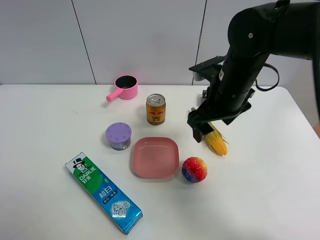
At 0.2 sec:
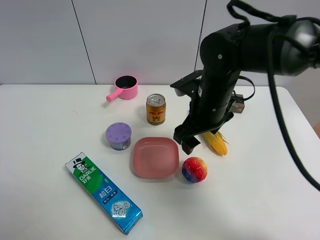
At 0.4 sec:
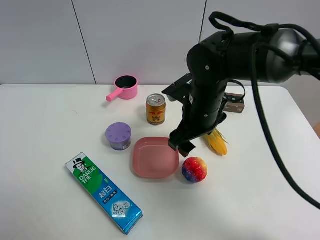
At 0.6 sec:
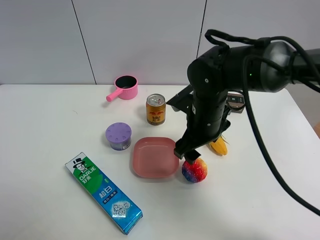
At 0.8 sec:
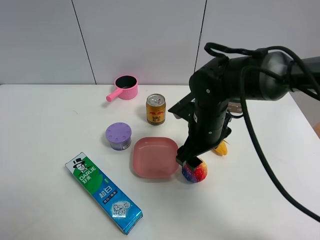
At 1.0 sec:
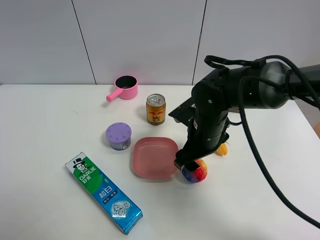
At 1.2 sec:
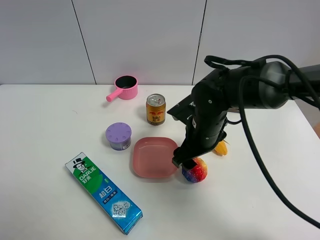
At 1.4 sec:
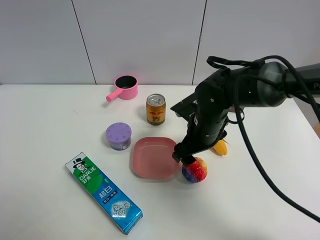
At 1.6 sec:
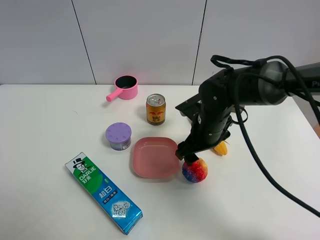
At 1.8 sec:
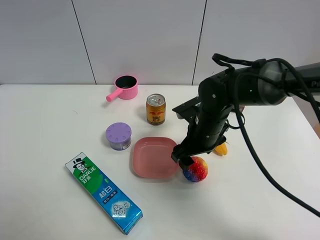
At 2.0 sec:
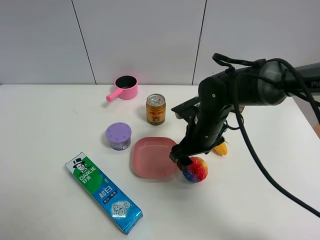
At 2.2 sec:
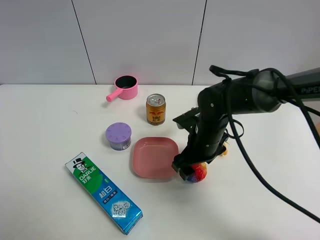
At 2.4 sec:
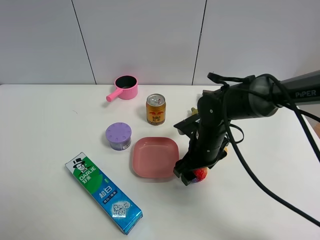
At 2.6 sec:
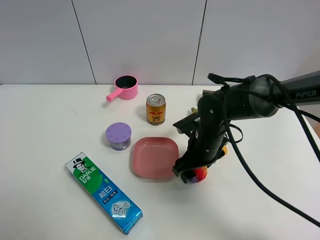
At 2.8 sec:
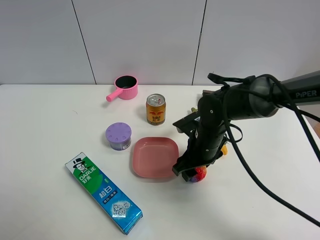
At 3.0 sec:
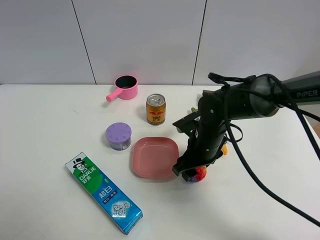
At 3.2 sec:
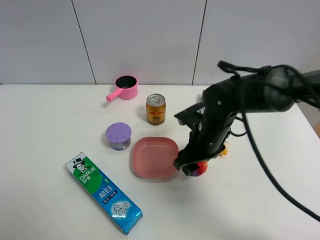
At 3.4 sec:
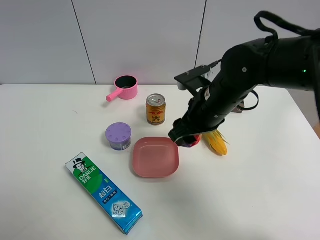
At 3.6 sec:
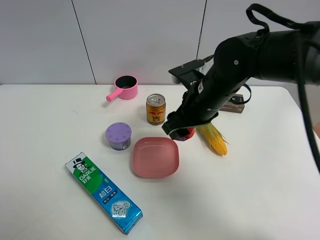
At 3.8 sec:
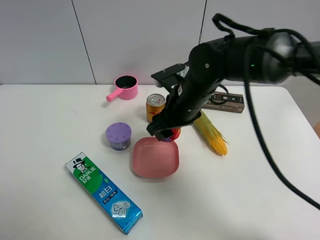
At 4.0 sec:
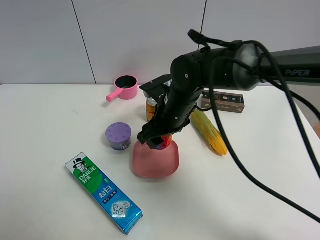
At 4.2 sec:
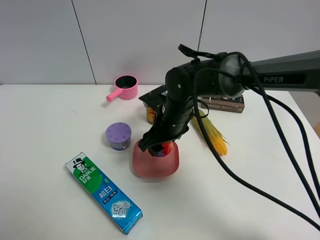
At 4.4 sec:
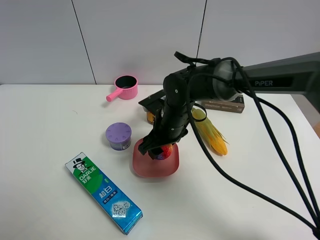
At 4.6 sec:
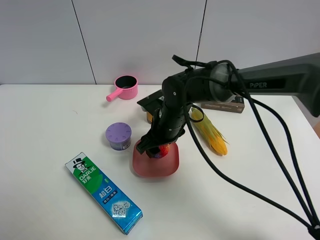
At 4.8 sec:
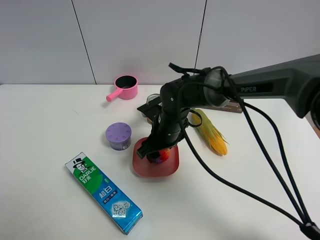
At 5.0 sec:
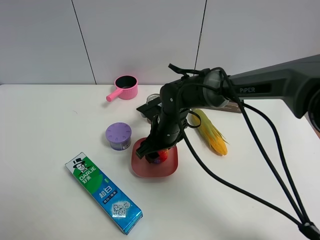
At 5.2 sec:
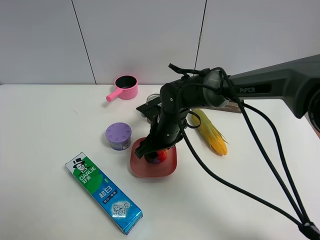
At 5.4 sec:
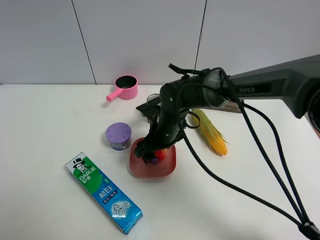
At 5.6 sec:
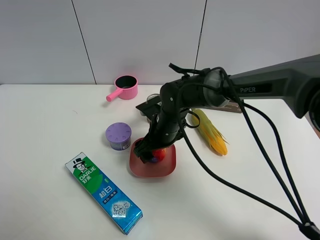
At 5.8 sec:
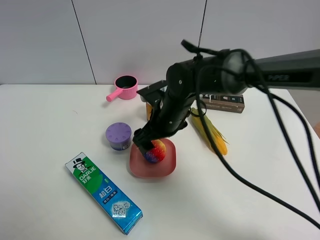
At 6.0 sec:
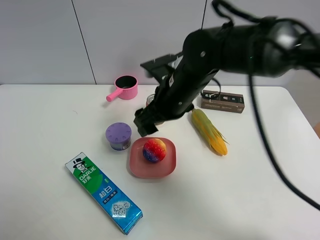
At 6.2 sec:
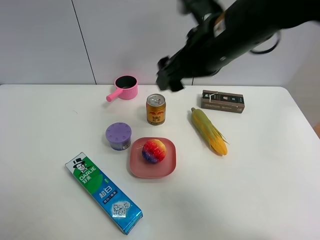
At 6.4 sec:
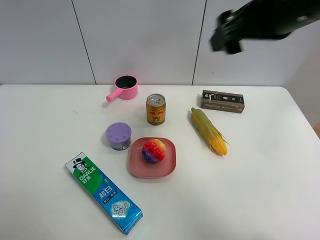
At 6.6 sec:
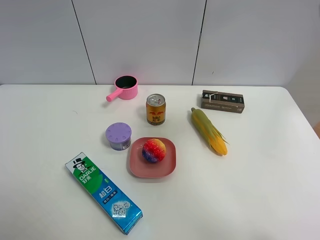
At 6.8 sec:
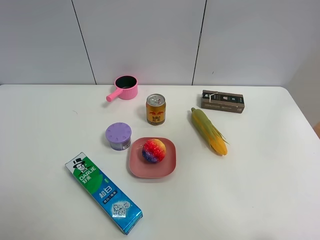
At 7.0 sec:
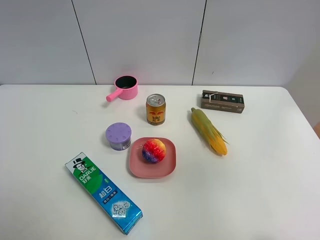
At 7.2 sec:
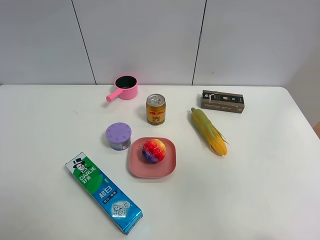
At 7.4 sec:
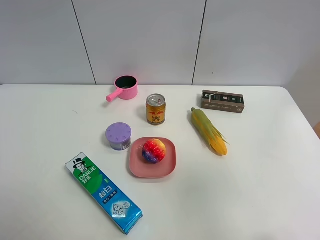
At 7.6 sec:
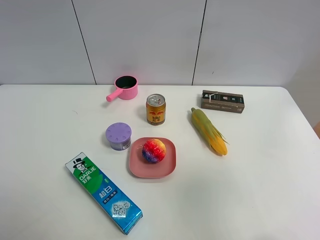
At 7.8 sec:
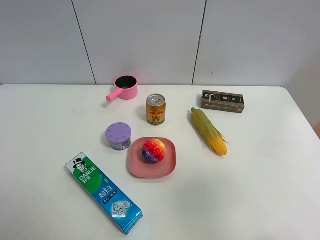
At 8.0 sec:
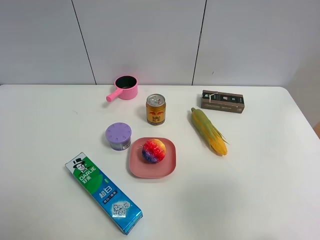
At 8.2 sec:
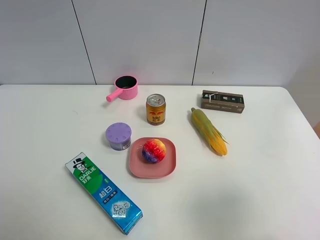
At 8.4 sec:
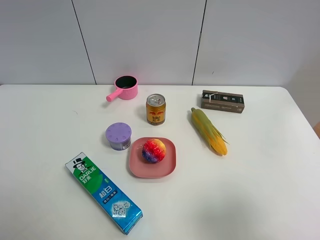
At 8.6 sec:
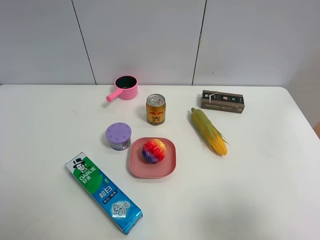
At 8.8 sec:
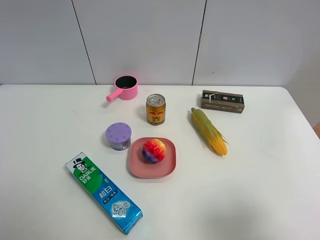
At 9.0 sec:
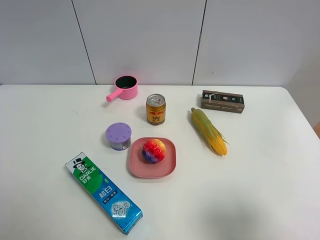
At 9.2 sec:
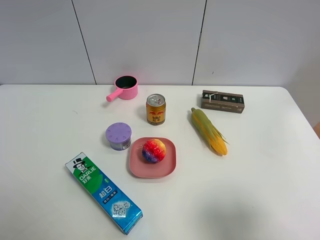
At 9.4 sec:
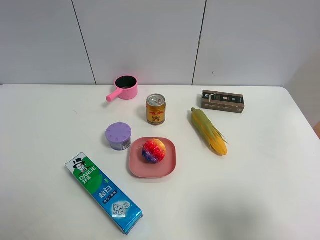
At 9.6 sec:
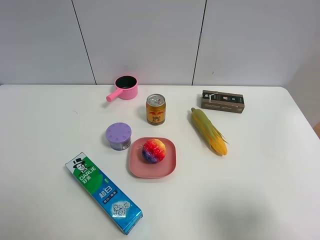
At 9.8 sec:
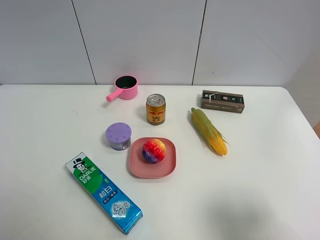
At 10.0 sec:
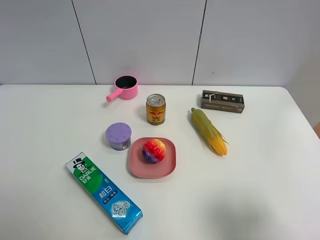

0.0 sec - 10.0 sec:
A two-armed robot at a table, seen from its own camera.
Task of the whole recording: the gripper move the object.
Step, 0.0 sec - 2.8 sec: Grasp the colorful ball with the right gripper.
Step, 3.0 sec - 5.8 sec: Place the colorful ball into the pink plate with the right gripper.
0.0 sec - 1.4 sec: The right gripper shifts about 10 cm downward.
1.4 sec - 2.8 sec: The right gripper closes up.
2.8 sec - 4.2 sec: The right gripper goes about 5 cm to the left, and reaches roughly 10 cm upward, then returns.
4.2 sec - 5.8 sec: The right gripper opens its fingers.
5.8 sec - 7.2 sec: The right gripper shifts approximately 50 cm to the right, backward and upward.
7.2 sec - 8.6 sec: The right gripper shifts about 20 cm downward.
